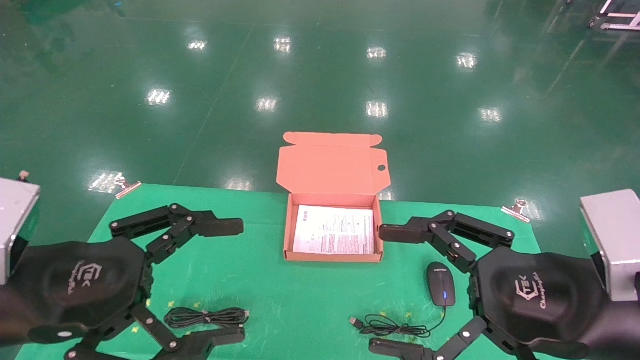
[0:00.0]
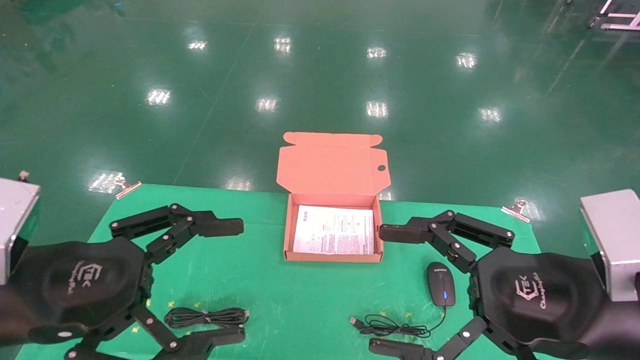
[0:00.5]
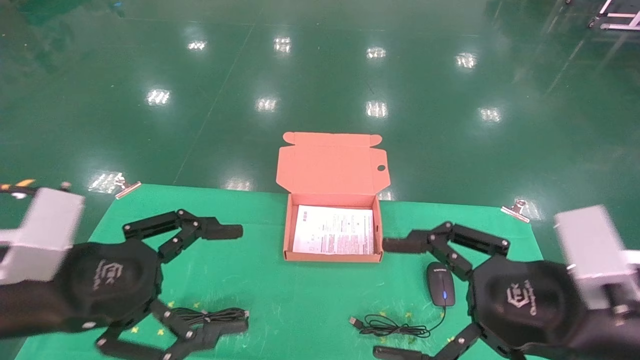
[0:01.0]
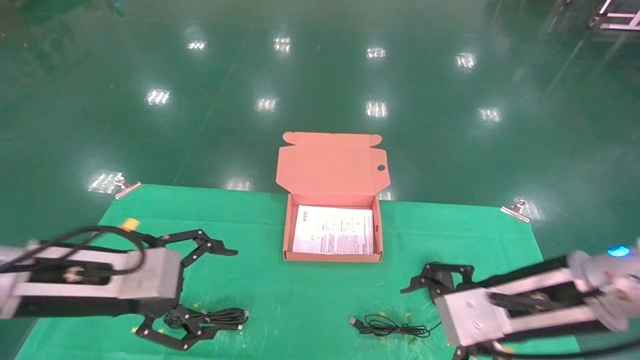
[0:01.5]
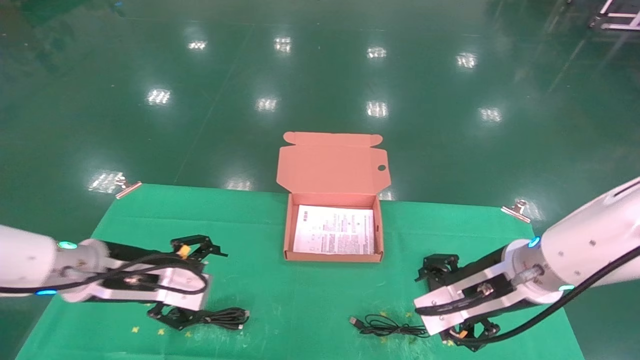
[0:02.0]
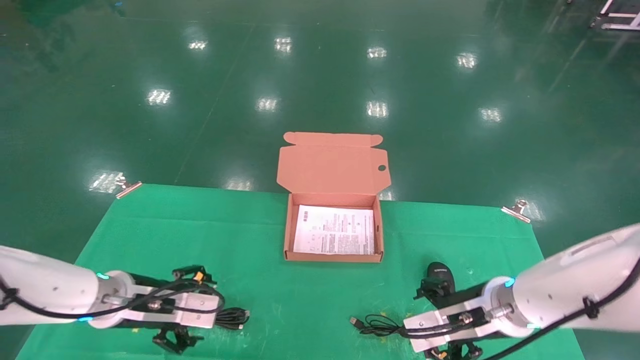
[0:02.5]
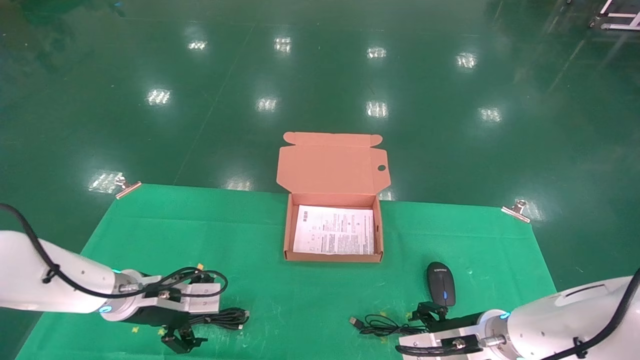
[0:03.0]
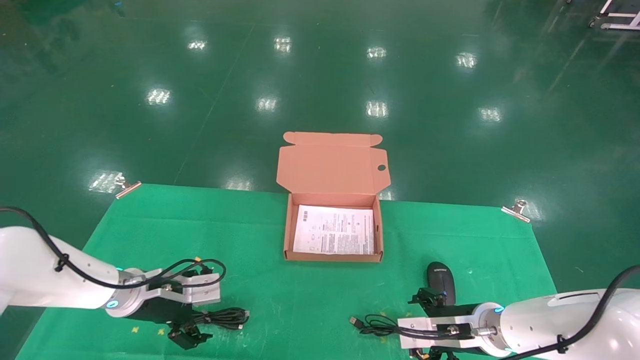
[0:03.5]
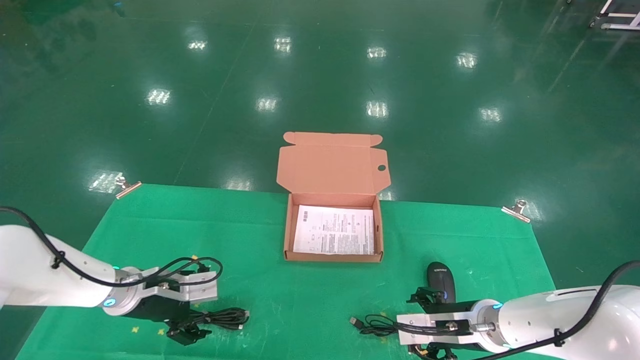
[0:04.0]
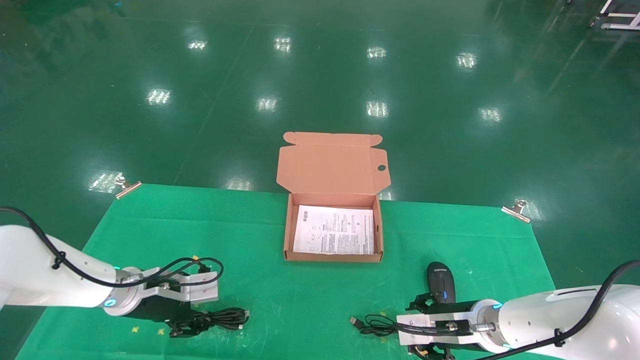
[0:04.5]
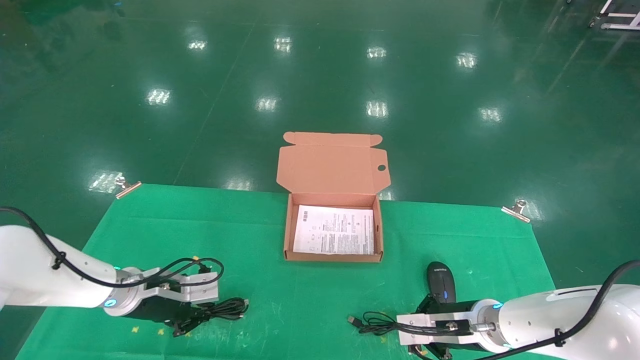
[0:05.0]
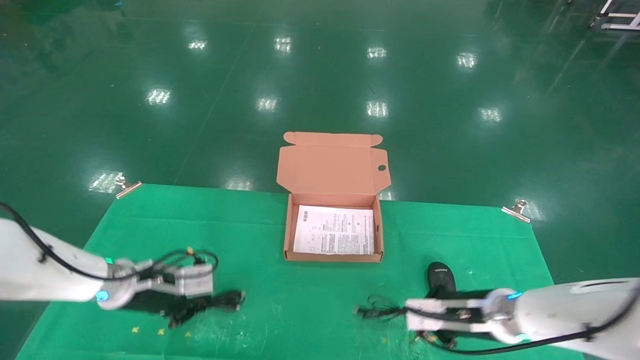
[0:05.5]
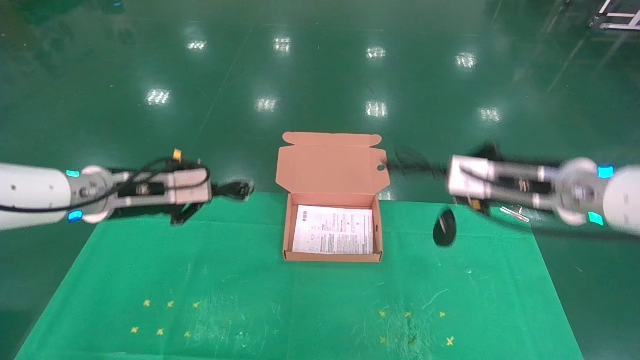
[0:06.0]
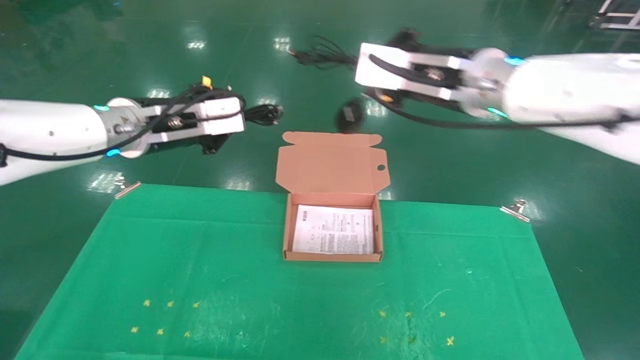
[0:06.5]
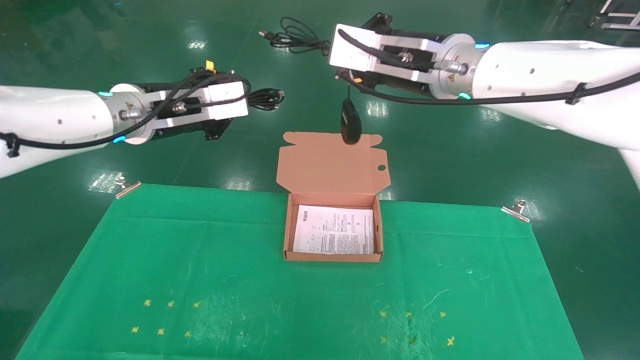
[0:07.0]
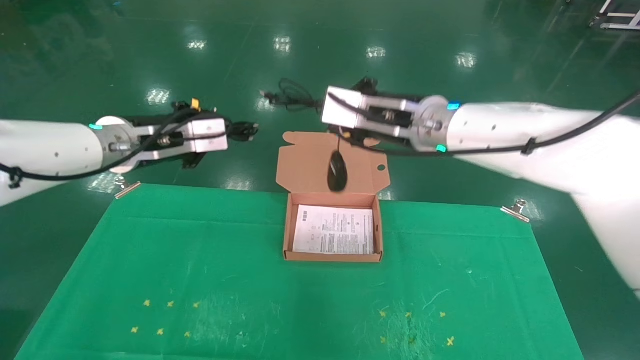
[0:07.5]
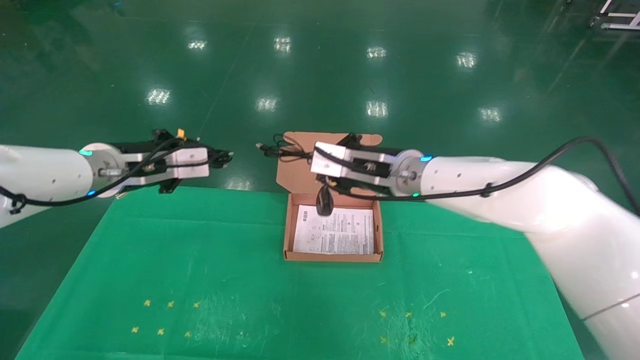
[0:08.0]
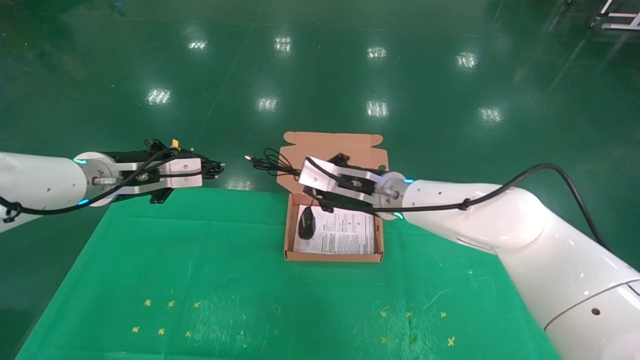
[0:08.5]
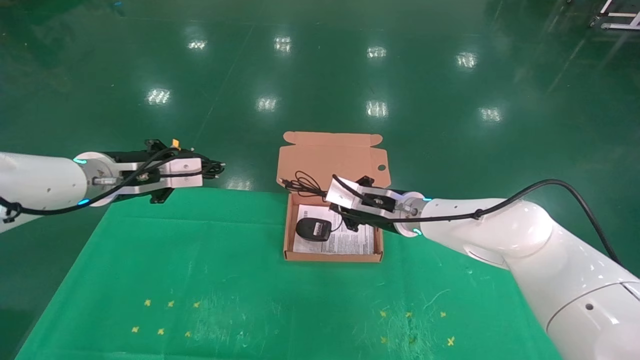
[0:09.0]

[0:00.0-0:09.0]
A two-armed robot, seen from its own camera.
Task of the whole recording: grasp data cable left put into box grasp mouse right put into box.
Step, 0:01.5 to 0:05.5: Grab and pick up both the mouse and power cord from the accessory packaging area at the same time.
0:00.0 to 0:02.0: The two grippers go some 15 cm forward and downward.
0:02.0 to 0:04.5: The left gripper shifts approximately 15 cm forward and downward, and closes its fingers, while the right gripper heads downward and forward, covering about 15 cm, and closes.
0:04.5 to 0:07.0: Both grippers move upward, some 30 cm. The right gripper closes up. Meanwhile the left gripper closes its fingers.
0:07.0 to 0:09.0: The right gripper heads downward and forward, covering about 25 cm. Meanwhile the left gripper moves downward and to the left, approximately 10 cm.

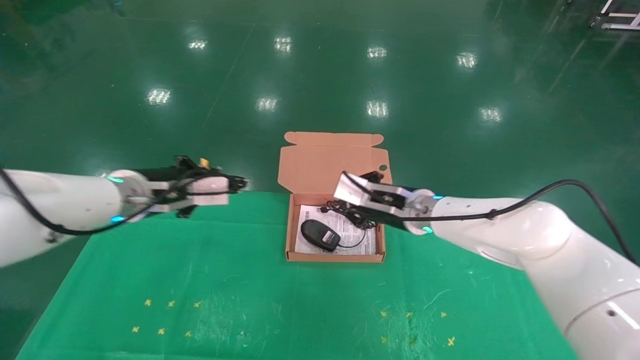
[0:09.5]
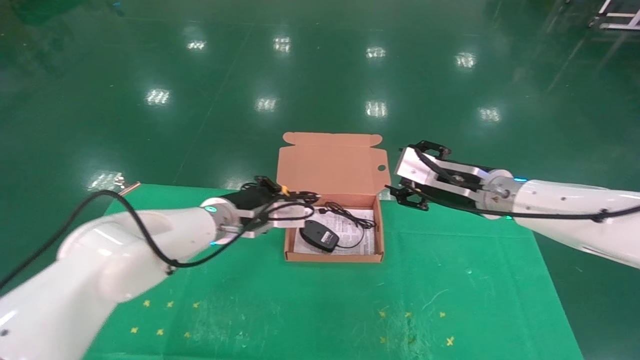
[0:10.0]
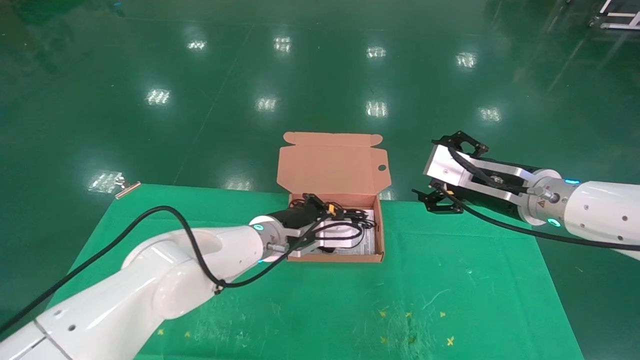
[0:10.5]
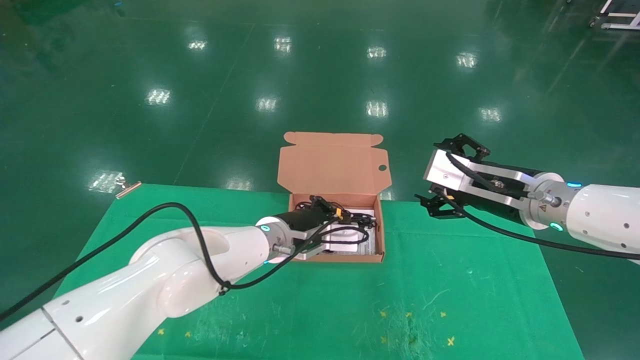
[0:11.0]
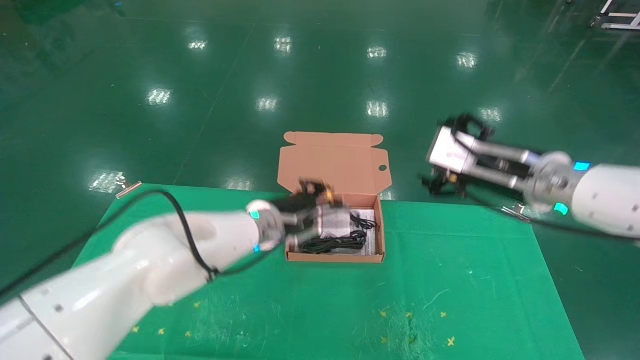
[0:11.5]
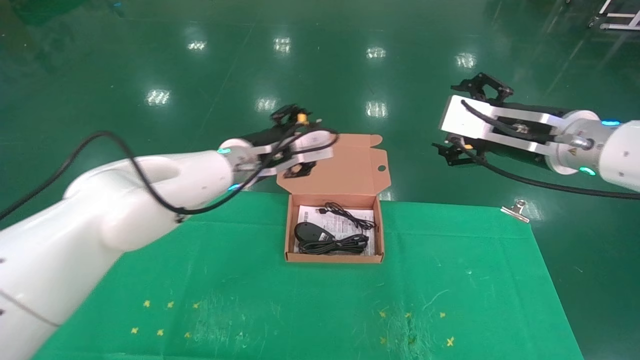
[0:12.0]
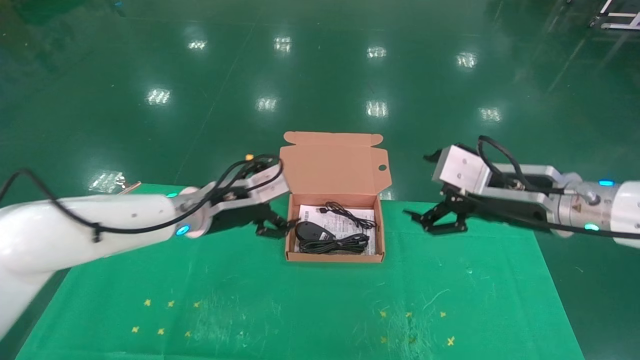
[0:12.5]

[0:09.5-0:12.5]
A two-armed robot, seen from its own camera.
Task of the whole recording: grasp data cable left put into box grasp mouse right put into box.
0:09.5 to 0:11.0: The left gripper travels to the right and downward by some 20 cm, while the right gripper heads to the right, backward and upward, covering approximately 15 cm, and opens.
0:11.0 to 0:12.5: The left gripper goes some 15 cm to the left and upward, and opens its fingers.
